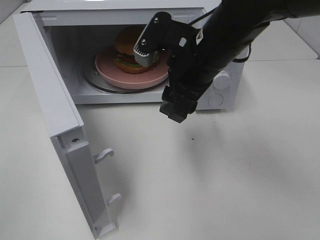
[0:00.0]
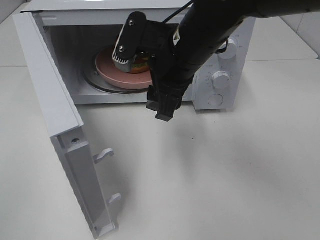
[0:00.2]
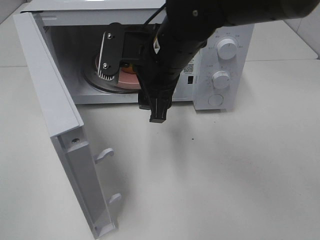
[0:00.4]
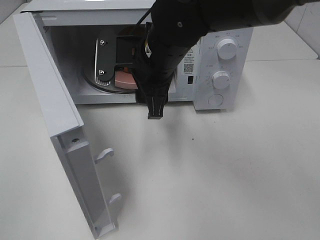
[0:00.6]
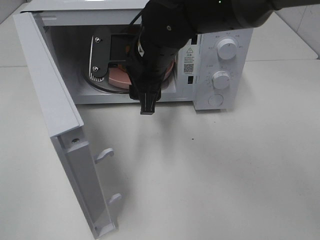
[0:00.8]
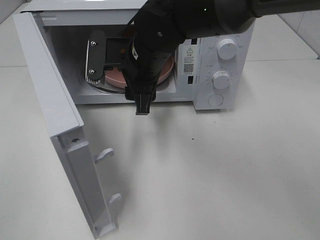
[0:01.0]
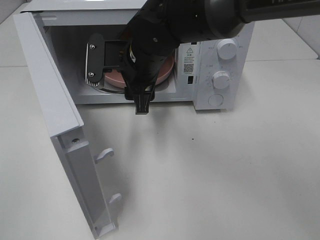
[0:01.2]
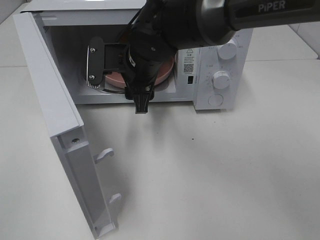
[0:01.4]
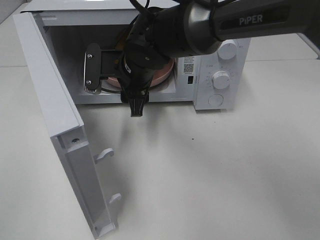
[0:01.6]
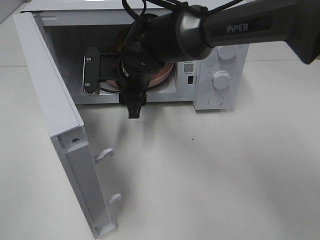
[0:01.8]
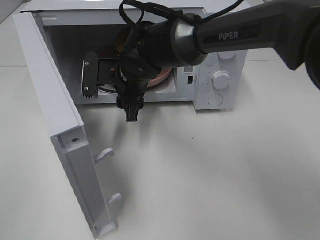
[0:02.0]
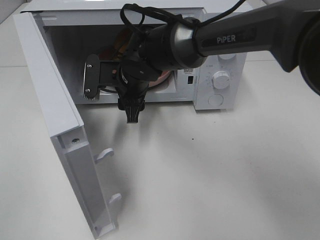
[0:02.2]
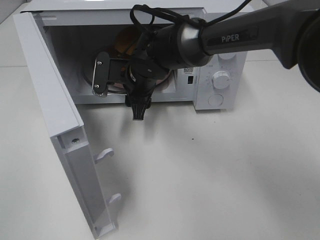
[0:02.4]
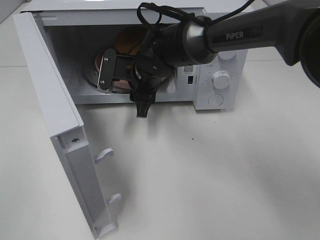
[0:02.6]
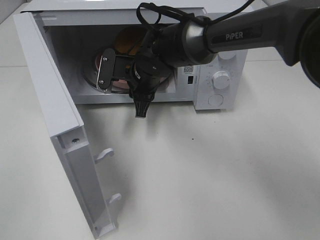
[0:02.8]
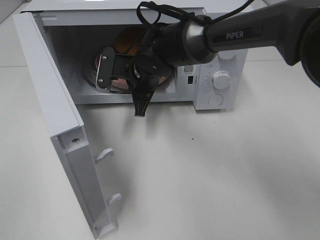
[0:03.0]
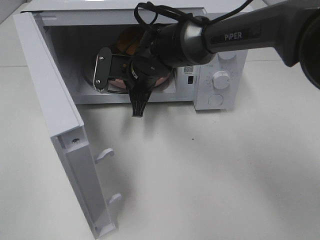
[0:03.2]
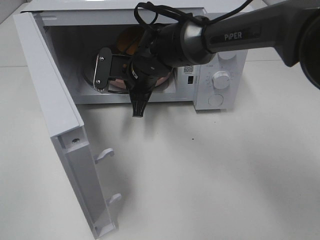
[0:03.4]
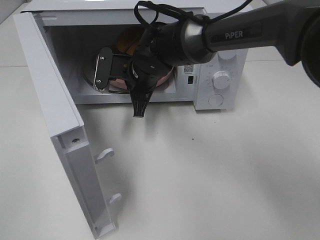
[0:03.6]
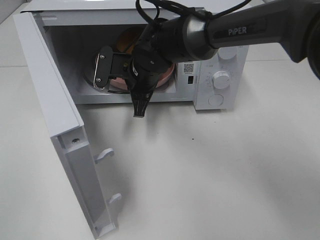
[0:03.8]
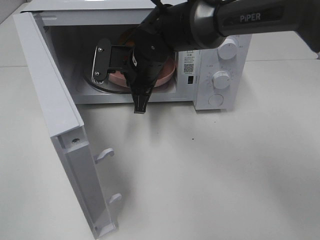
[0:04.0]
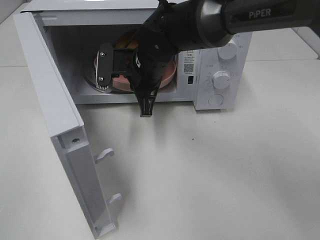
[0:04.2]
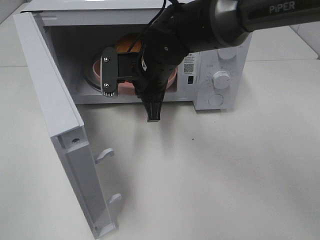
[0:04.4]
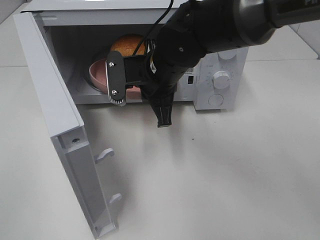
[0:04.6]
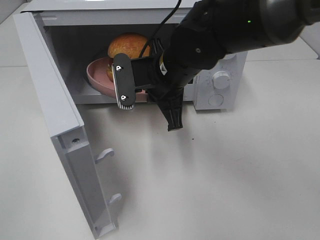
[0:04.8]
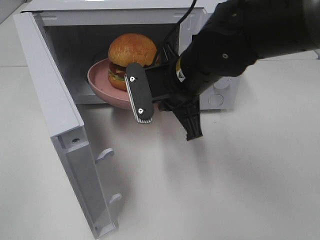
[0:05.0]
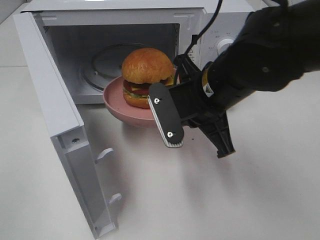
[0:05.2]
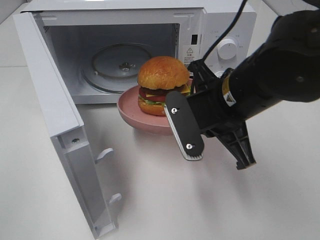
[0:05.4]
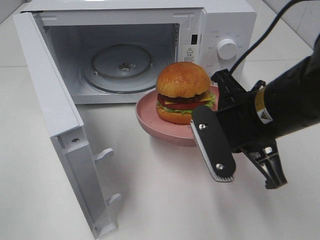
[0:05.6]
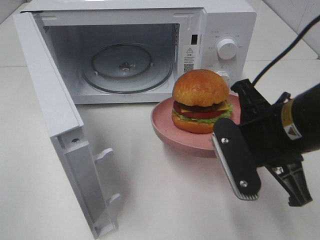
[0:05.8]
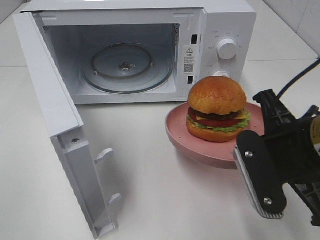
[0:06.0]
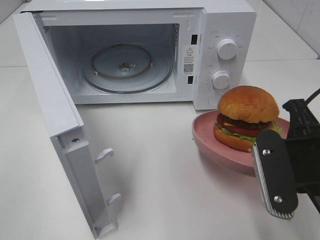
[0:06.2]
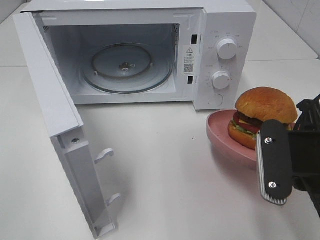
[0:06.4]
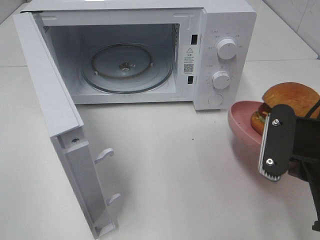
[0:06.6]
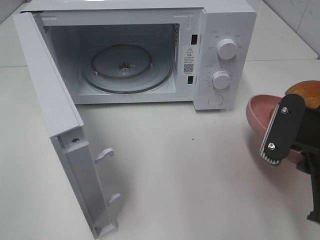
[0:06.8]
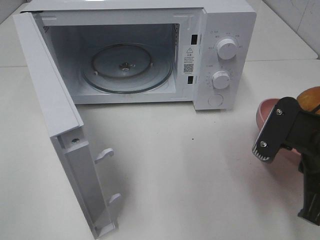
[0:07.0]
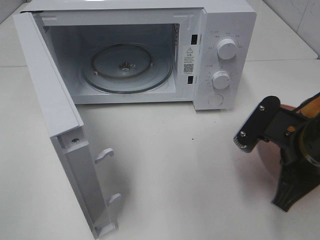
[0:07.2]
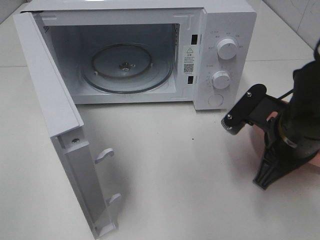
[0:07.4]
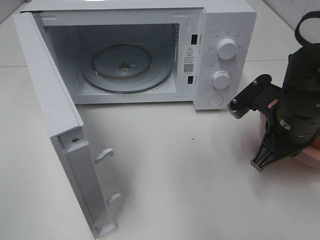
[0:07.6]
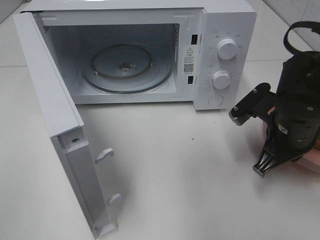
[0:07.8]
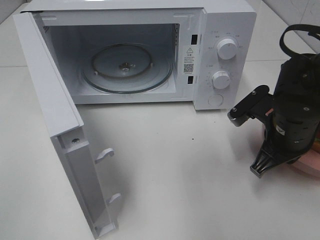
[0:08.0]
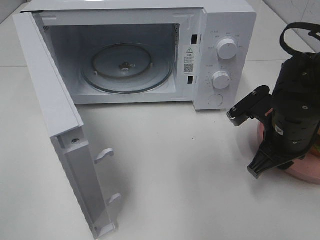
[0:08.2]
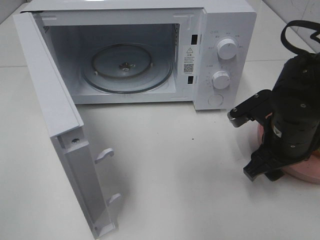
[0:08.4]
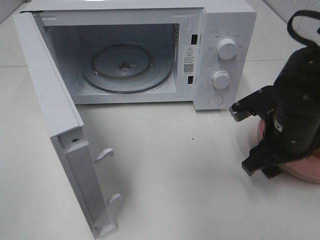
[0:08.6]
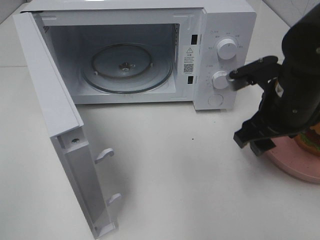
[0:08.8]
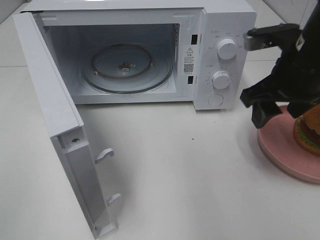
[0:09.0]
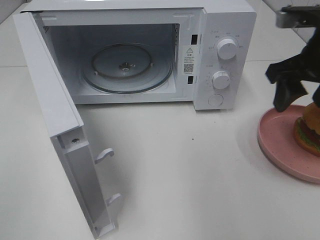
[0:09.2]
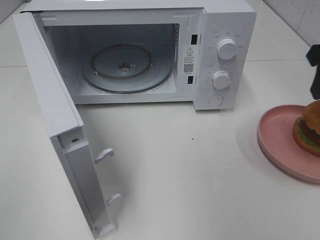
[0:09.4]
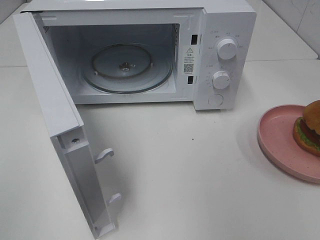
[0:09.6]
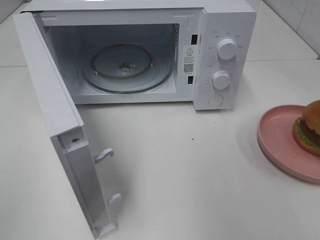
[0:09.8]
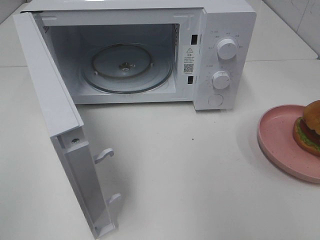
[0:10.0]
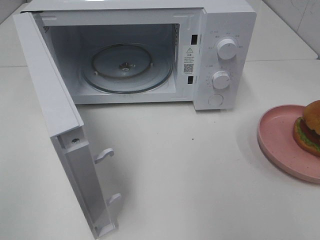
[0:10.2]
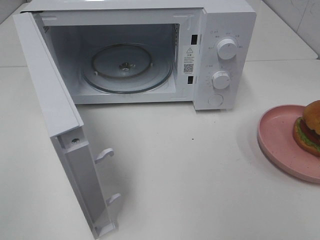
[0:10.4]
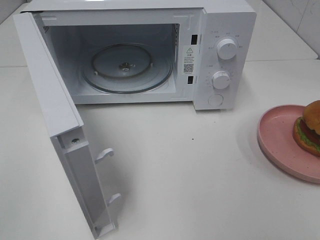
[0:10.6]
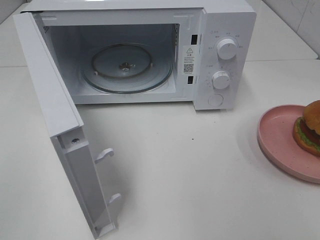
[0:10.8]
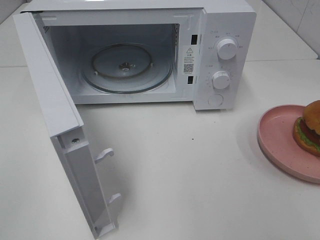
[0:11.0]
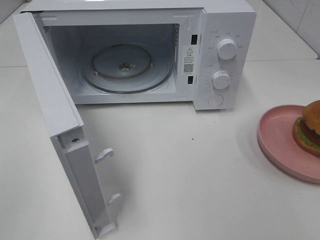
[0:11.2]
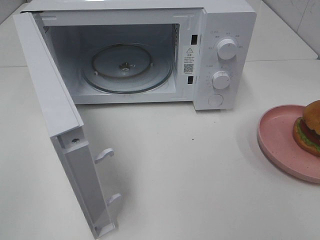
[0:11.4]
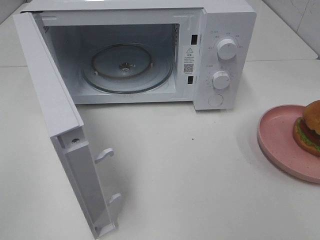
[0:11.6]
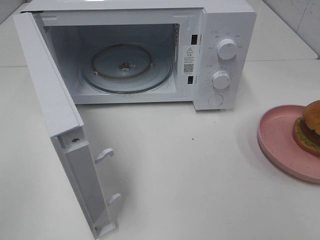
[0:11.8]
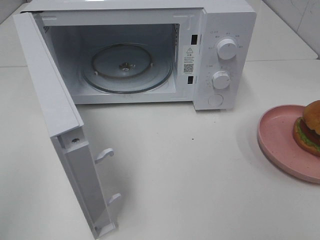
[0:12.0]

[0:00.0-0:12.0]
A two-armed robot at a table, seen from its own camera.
Task of the whole recording: Heat the burger.
Step, 0:00.0 to 0:03.4: Right hand: grab the plate with the hamburger.
Step, 0:03.6 to 0:08.2: Right hand: place the plate on the table.
0:00.0 to 0:01.6: The right gripper goes some 15 cm to the left, downward and forward.
0:01.6 to 0:03.0: The right gripper closes up.
0:03.0 to 0:04.4: The right gripper moves some 5 cm.
0:04.4 to 0:06.0: The right gripper is displaced backward and to the right by some 25 cm.
0:06.0 to 0:07.6: The right gripper shifts some 10 cm forward.
0:07.6 to 0:09.0: The right gripper goes about 10 cm upward, and opens.
0:09.0 to 0:10.4: The right gripper moves backward and to the right, some 20 cm.

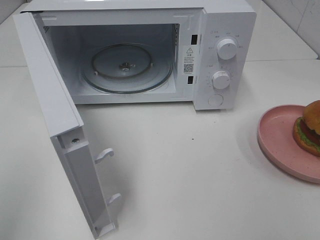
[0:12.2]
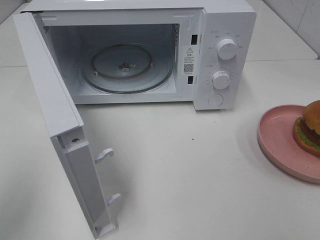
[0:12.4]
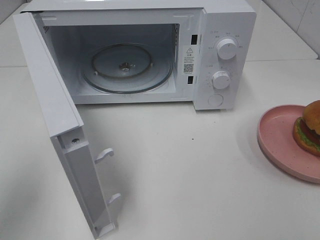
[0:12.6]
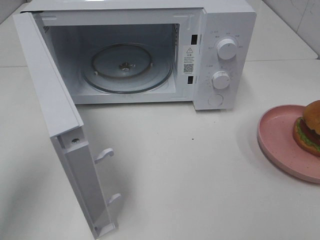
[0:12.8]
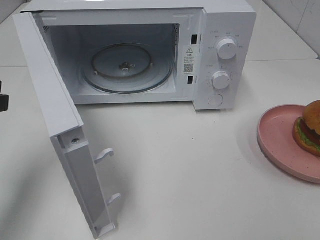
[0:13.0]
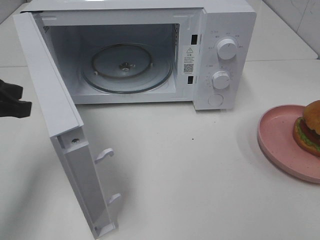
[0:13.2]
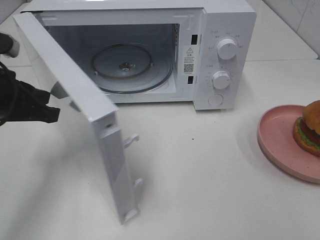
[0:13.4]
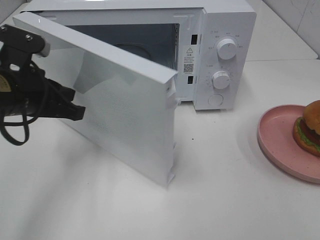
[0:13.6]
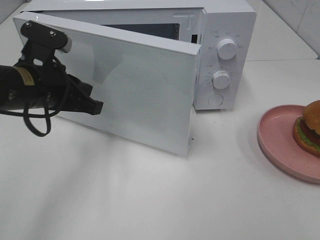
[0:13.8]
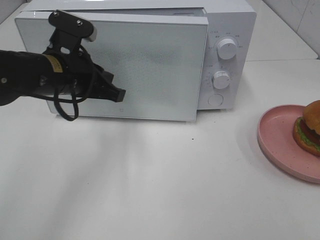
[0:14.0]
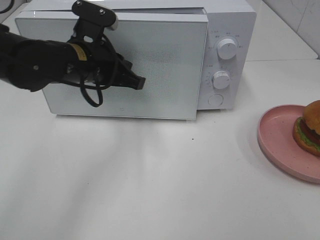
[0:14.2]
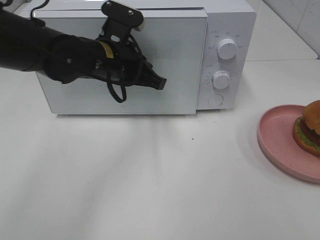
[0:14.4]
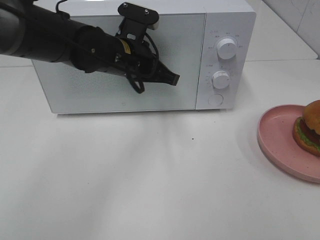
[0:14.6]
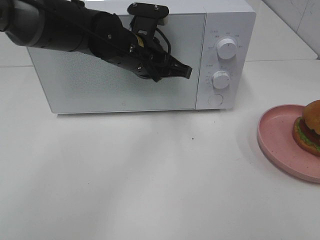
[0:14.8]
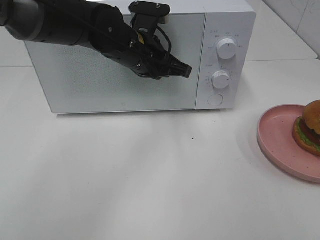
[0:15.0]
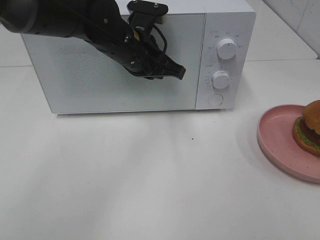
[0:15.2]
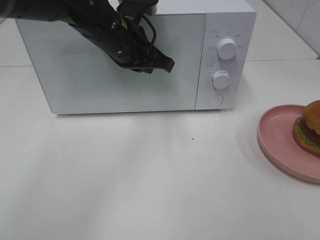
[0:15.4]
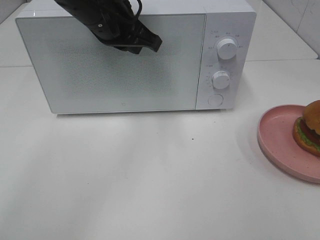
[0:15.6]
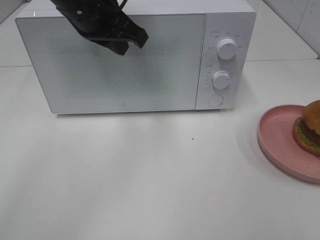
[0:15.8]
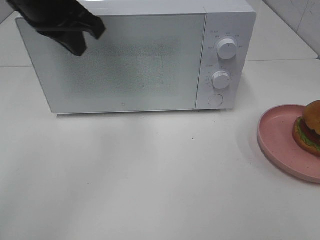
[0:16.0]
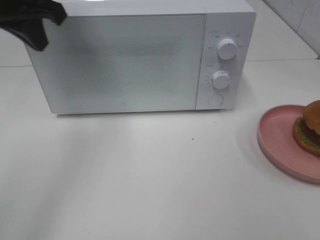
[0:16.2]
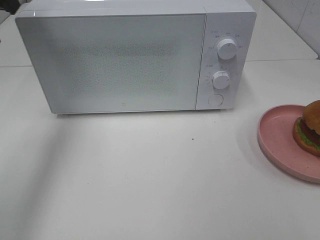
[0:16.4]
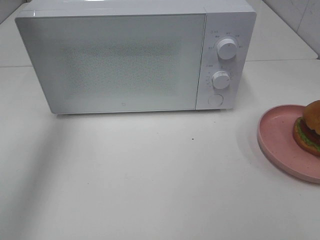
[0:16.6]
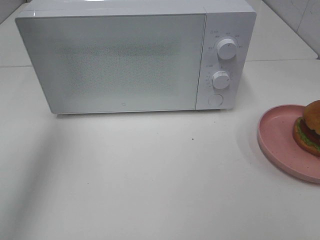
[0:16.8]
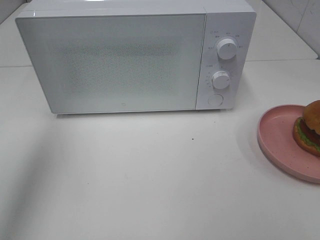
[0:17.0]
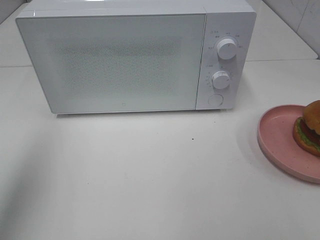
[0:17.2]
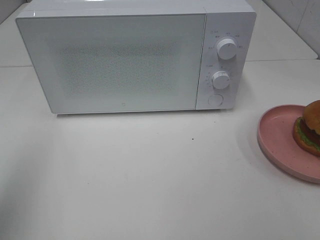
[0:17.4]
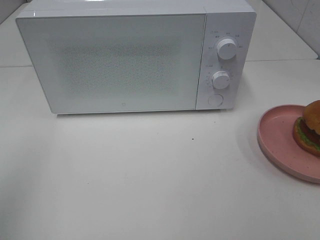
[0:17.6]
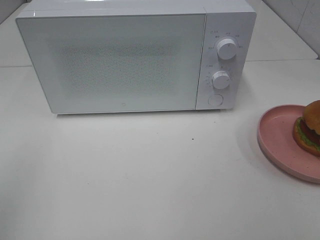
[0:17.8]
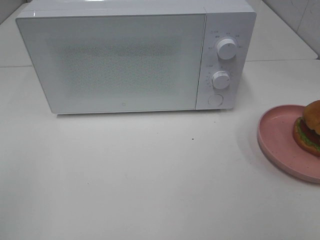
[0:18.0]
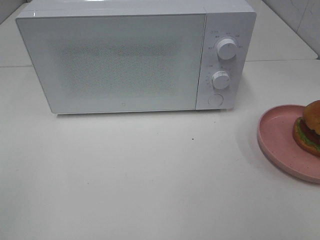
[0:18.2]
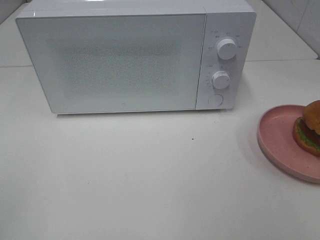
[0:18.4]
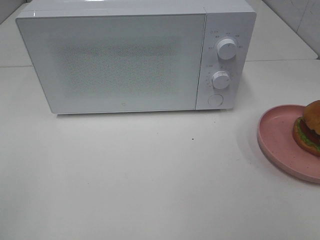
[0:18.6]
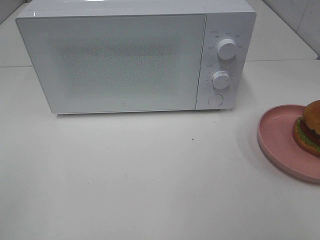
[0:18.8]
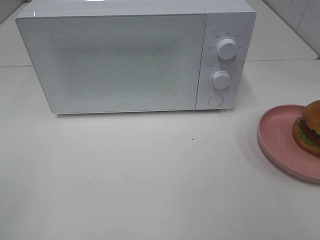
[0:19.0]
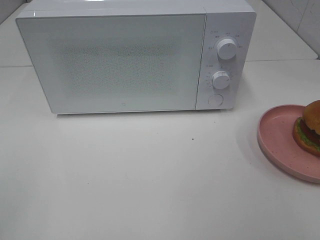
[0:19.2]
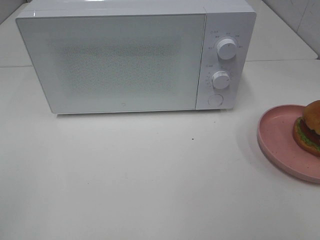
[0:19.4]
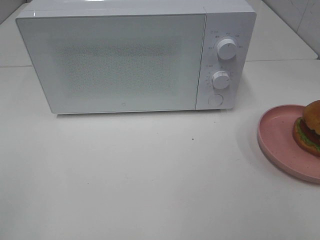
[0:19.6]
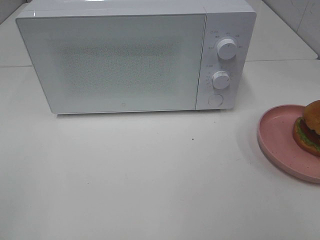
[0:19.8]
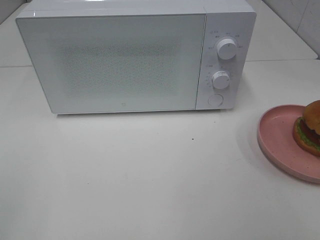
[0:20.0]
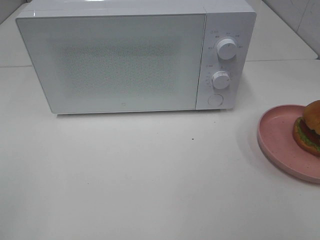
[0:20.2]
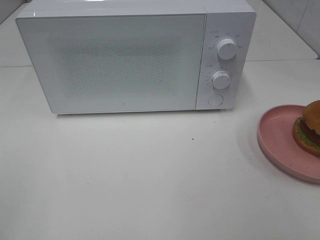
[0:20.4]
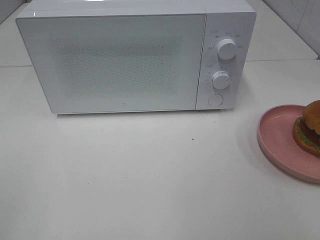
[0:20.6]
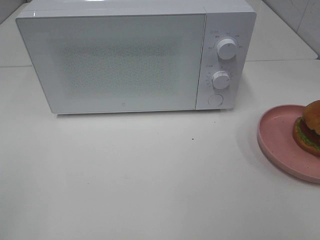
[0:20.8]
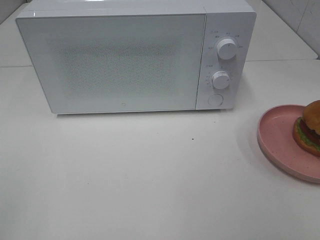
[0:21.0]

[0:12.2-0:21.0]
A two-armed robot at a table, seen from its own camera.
Task of the whole recording: Heat the burger.
Step, 0:12.2 to 0:15.2: Left hand: close the microwave door.
0:12.2 to 0:13.6: The left gripper travels forward, to the right and downward by some 25 cm.
0:13.6 to 0:15.2: The left gripper shifts about 20 cm to the right and forward.
0:15.2 to 0:16.6: The left gripper travels to the left and upward by about 30 cm.
0:16.6 to 0:18.0: The left gripper is displaced backward by some 30 cm.
0:19.6 to 0:21.0: Both grippers stay put.

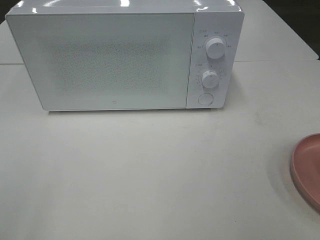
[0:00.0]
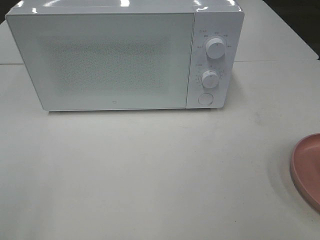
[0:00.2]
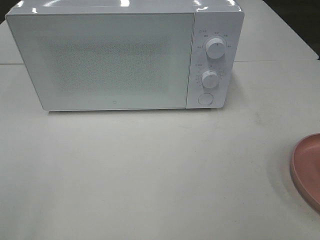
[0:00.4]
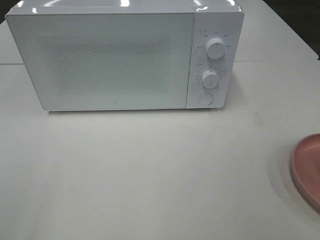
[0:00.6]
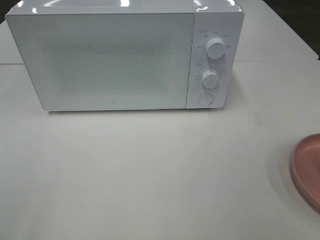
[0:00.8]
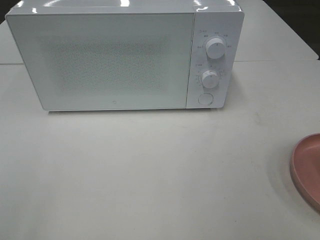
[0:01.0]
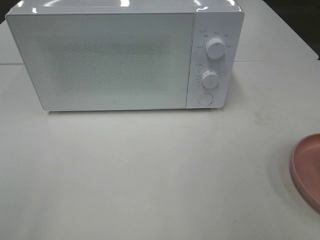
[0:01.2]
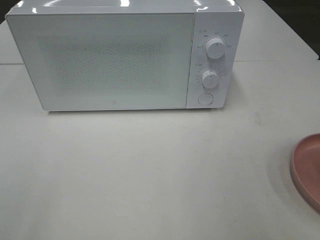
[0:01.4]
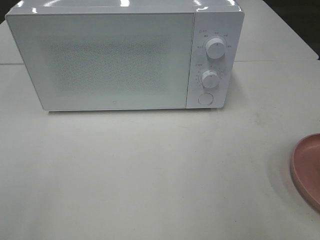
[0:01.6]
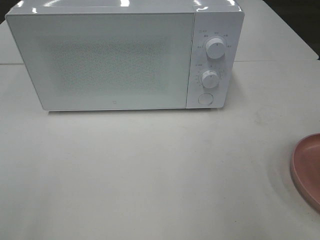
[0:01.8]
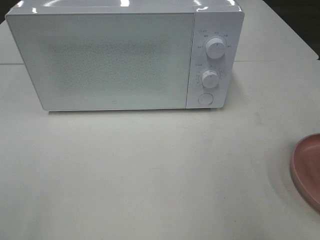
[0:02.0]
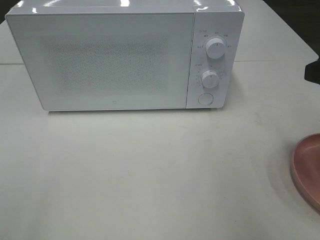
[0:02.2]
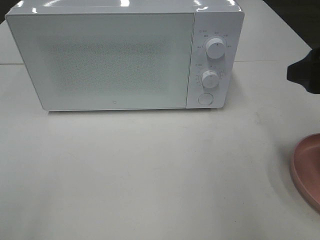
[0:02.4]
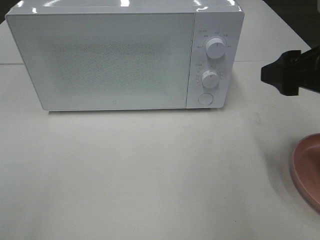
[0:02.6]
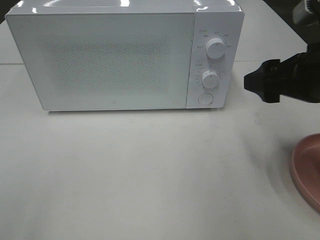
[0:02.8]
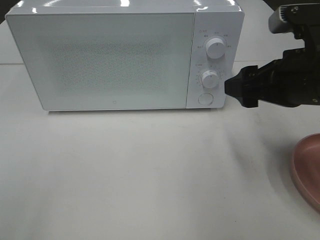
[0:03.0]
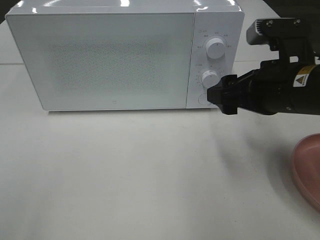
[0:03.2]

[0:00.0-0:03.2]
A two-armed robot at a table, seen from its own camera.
Task of the whole recording: Heat the burger.
0:01.6 to 0:03.2: The right gripper shifts roughly 20 cm forward, to the left and downward.
